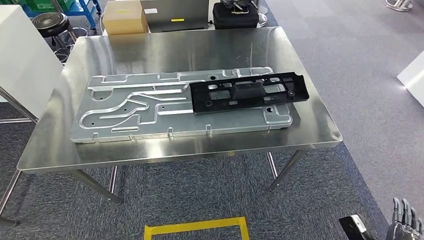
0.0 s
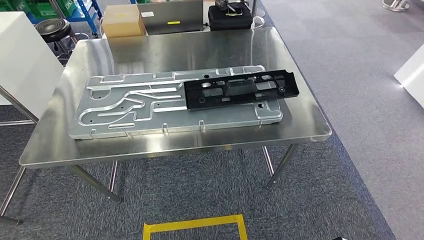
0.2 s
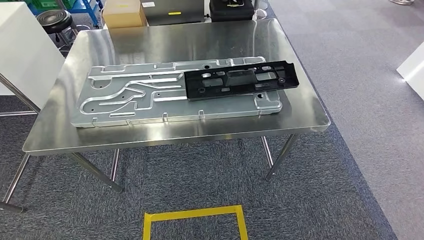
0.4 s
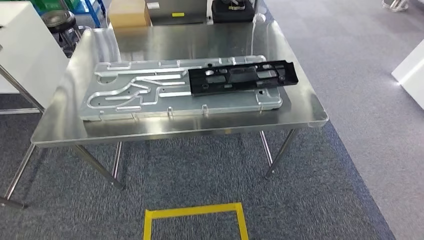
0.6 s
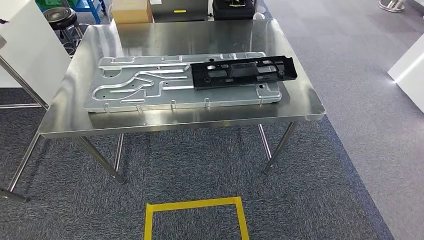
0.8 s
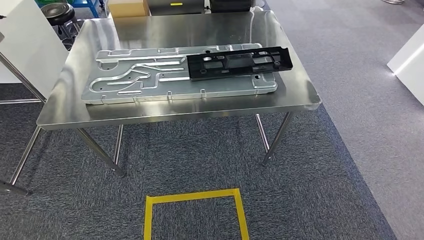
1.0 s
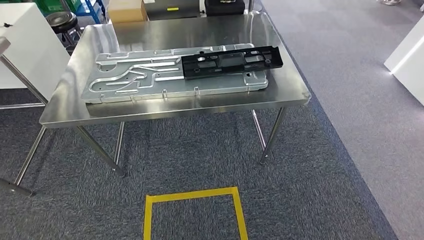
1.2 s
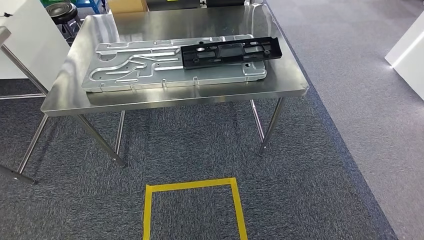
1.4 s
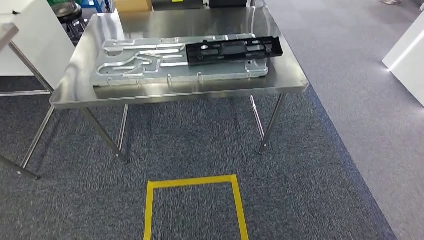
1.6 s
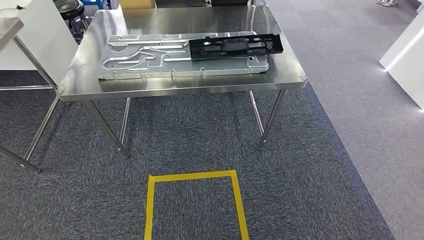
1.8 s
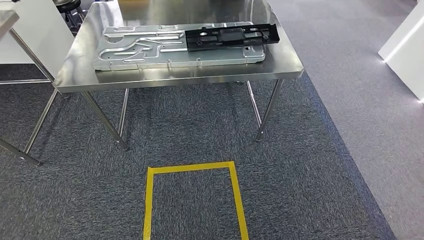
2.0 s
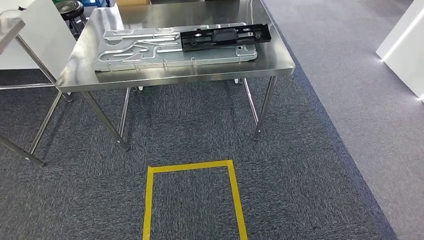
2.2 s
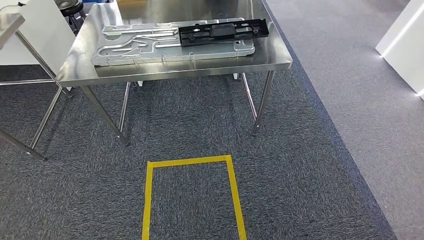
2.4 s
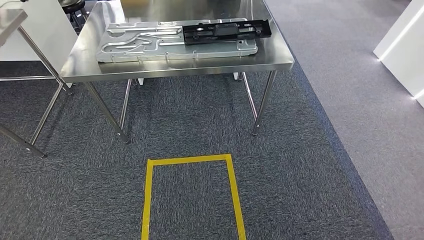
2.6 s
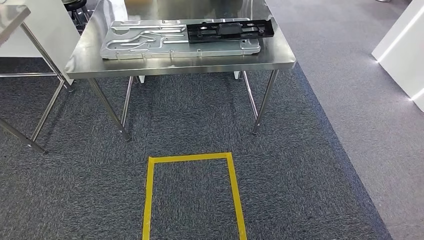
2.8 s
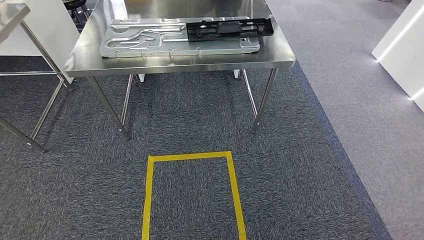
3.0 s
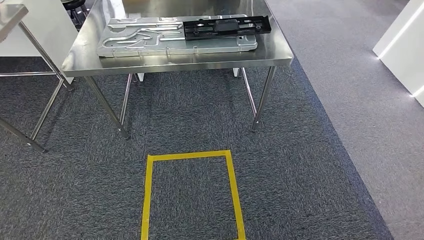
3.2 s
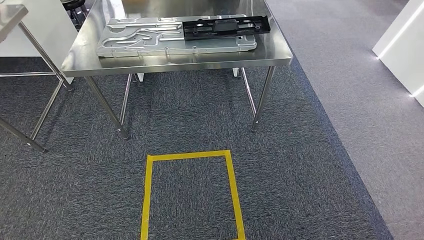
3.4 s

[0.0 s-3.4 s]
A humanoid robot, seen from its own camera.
Step, 2.2 to 3.4 s: Move to the initial position of the shelf.

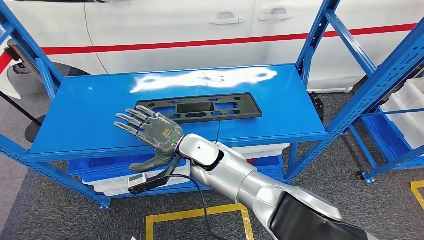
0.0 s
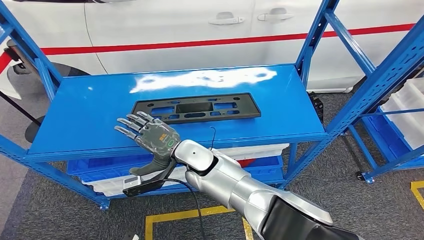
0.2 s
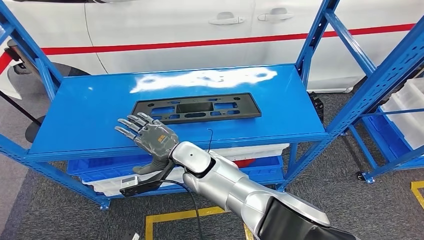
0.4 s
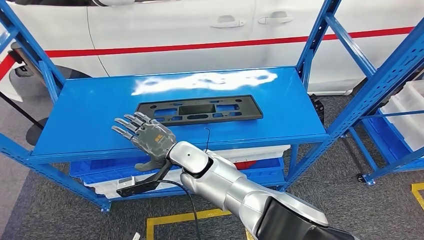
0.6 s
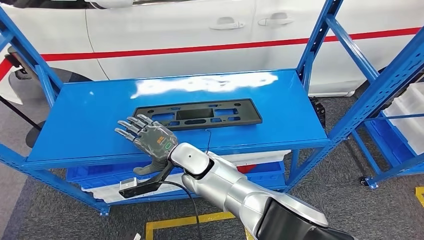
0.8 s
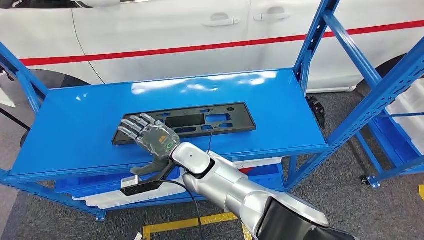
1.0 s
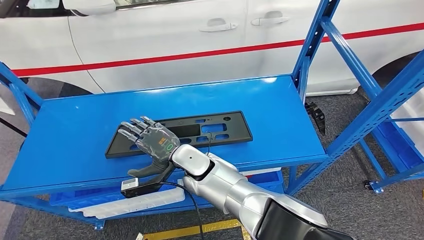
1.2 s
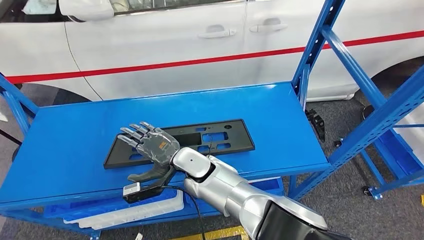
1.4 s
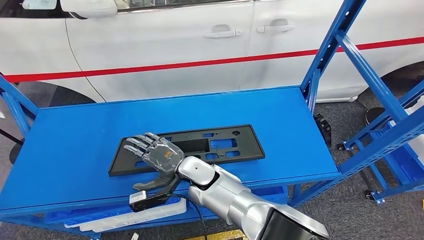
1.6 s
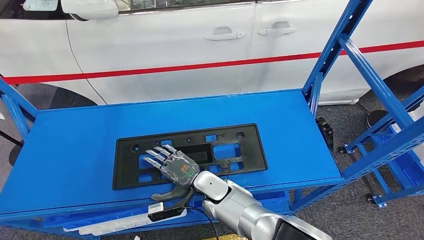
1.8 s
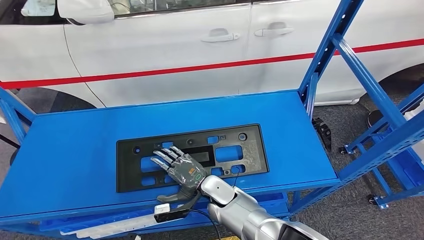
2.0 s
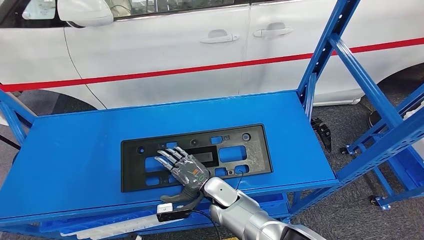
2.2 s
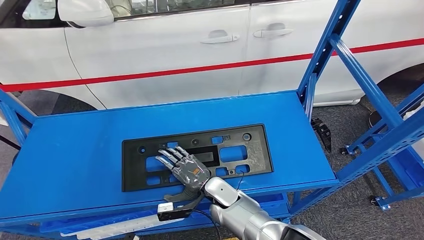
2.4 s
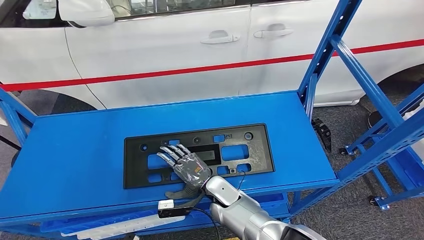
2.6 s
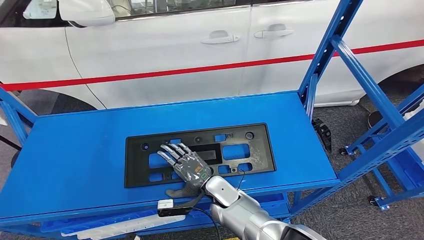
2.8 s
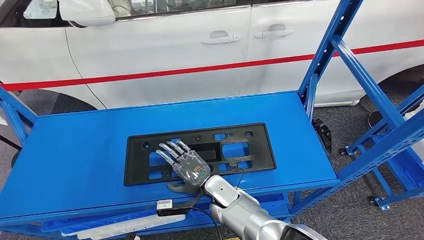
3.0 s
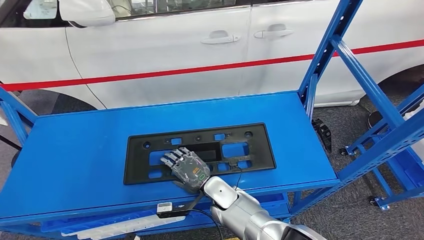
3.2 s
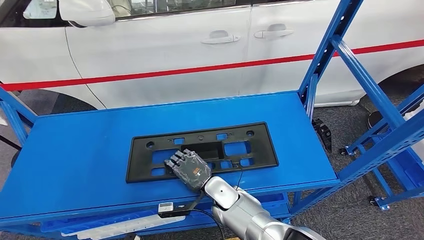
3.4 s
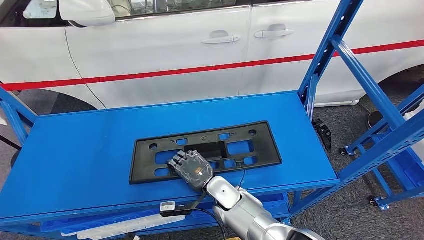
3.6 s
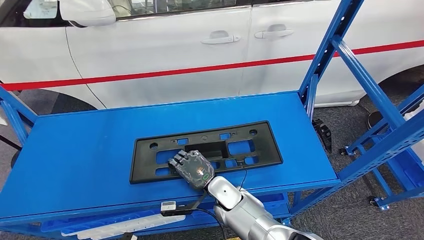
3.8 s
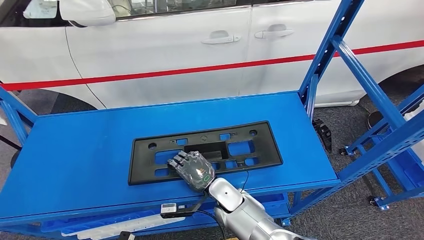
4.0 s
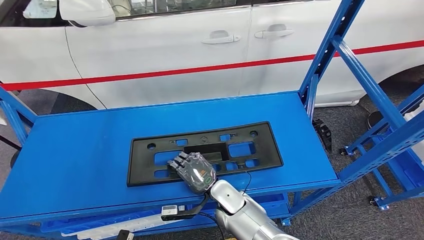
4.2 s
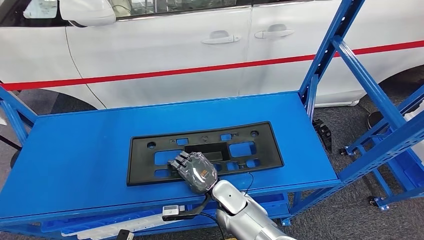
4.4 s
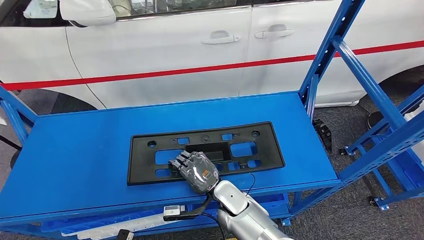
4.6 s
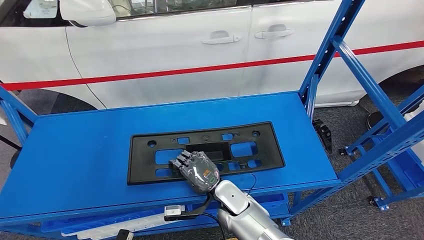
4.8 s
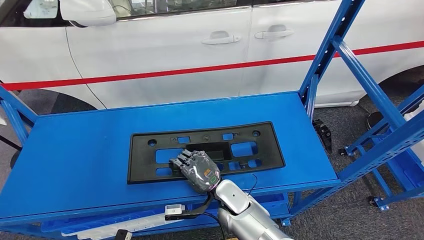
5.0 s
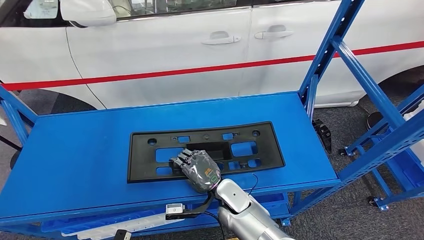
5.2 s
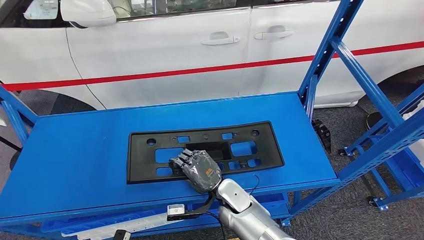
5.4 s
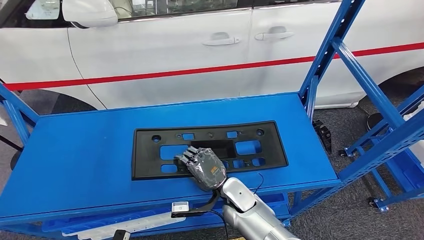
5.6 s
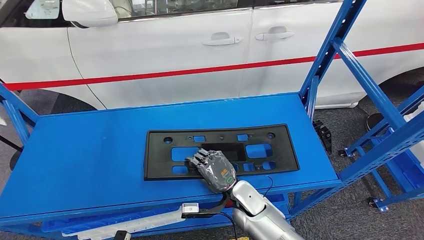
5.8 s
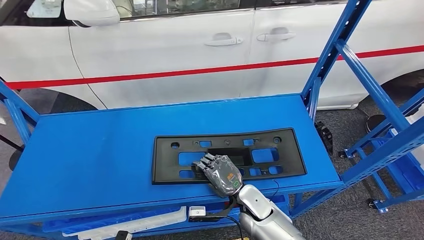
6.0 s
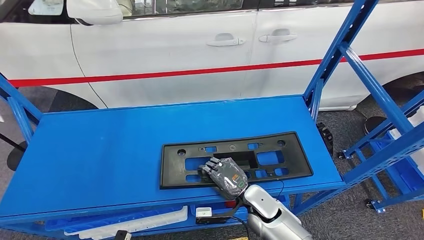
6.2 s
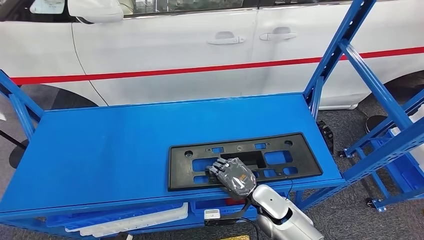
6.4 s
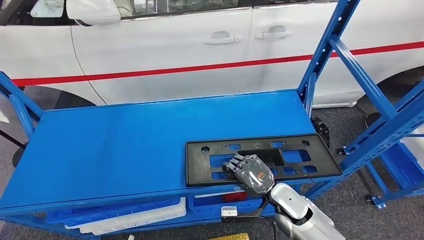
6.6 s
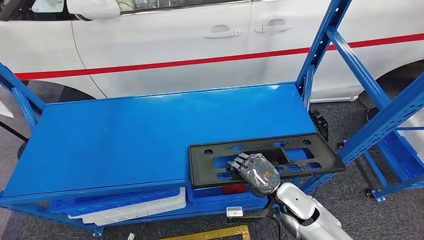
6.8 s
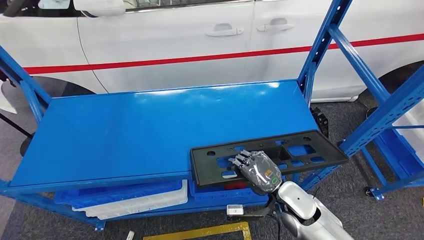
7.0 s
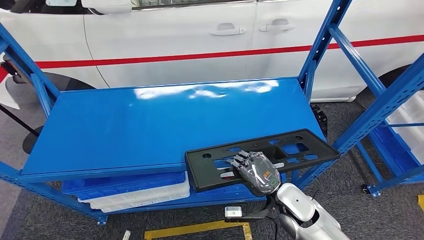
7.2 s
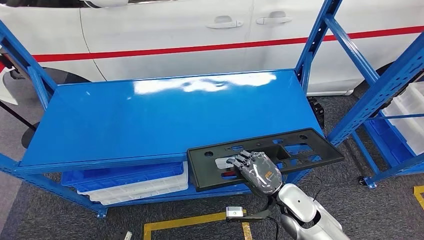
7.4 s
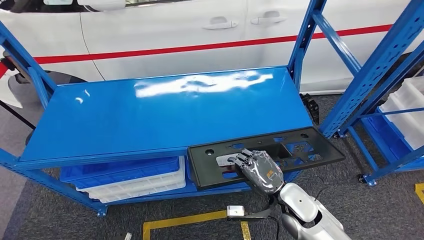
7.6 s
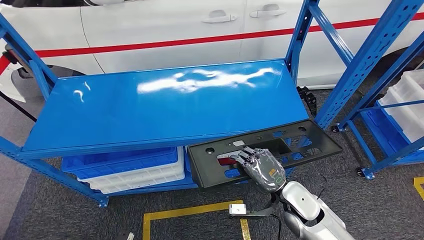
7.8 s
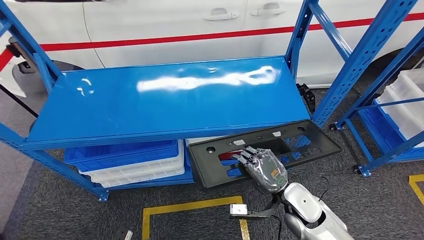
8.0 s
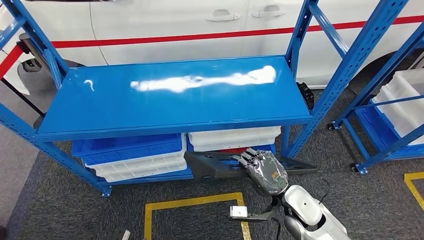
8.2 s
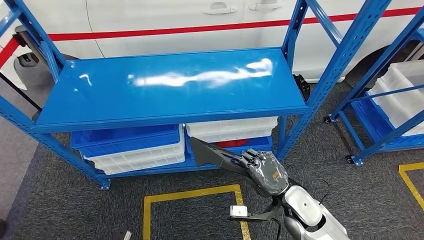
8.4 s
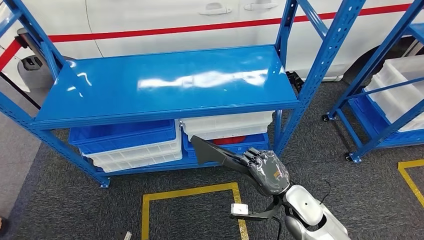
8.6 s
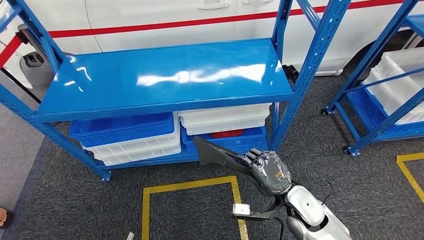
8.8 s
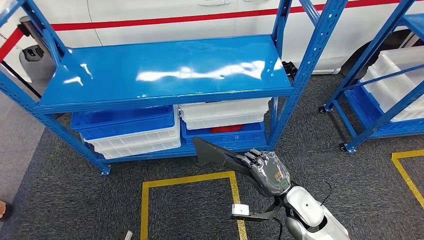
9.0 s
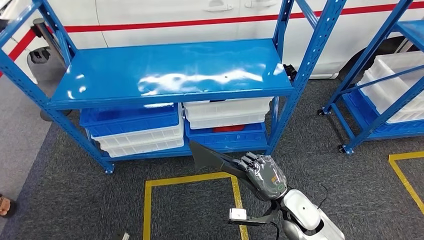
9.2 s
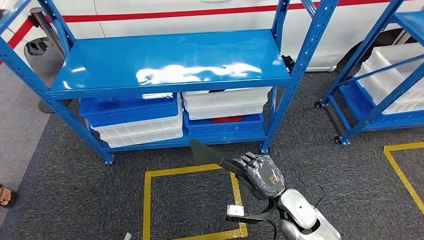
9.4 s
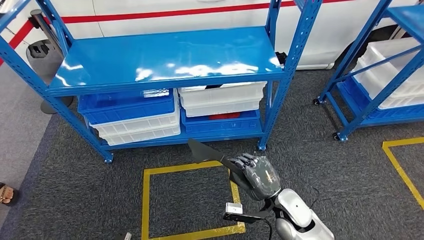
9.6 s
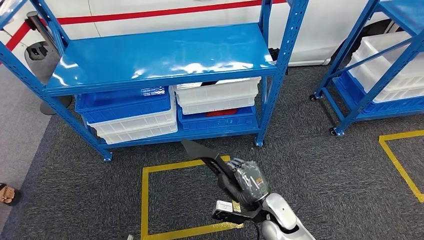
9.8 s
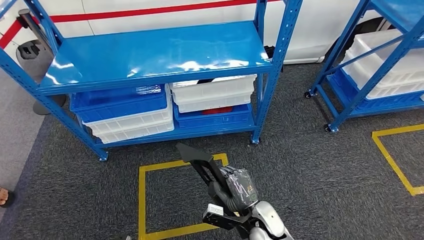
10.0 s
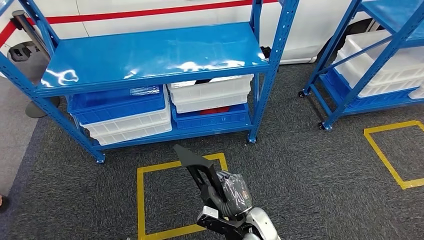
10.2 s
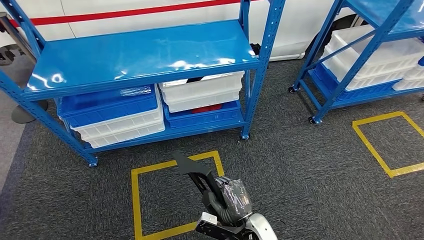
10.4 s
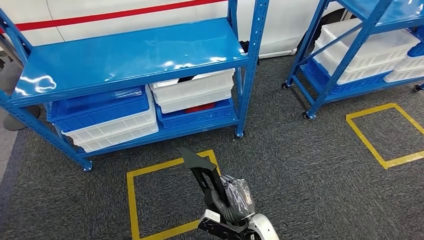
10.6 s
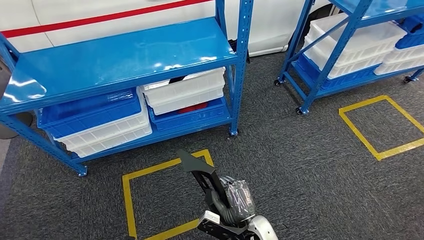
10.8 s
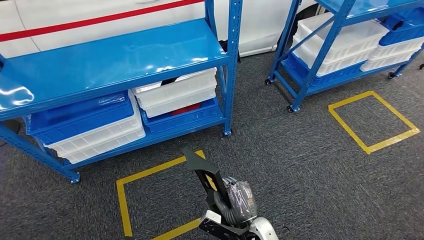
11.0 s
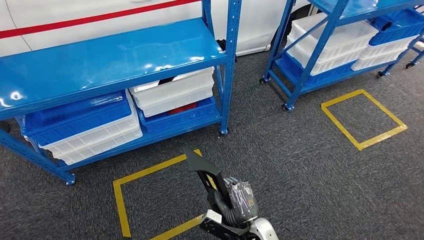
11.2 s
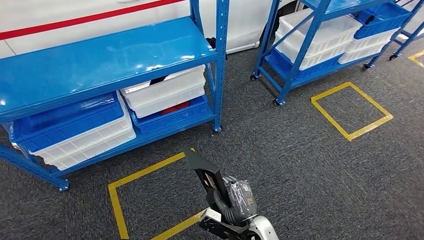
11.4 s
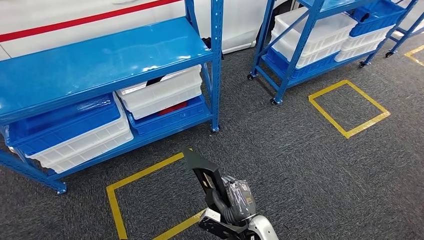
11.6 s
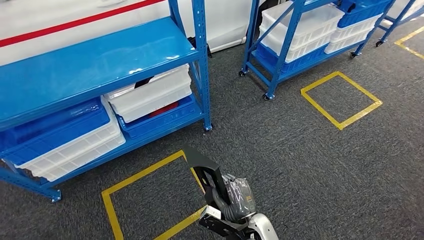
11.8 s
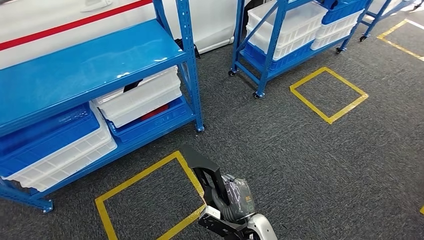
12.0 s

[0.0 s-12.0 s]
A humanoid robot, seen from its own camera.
Step, 0.0 to 2.8 s: Pick up the large material from the shelf.
3.0 to 4.4 s: There are only small adjustments of the hands.
